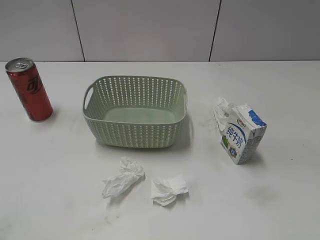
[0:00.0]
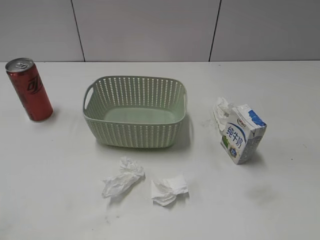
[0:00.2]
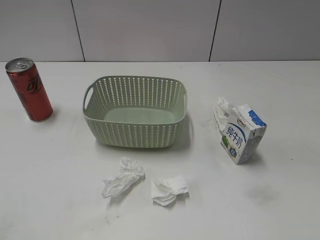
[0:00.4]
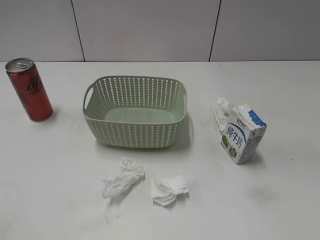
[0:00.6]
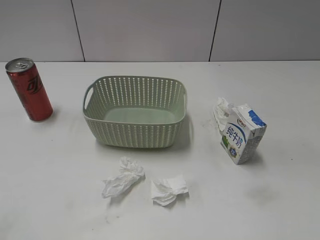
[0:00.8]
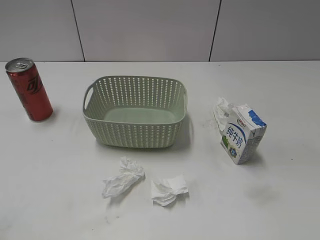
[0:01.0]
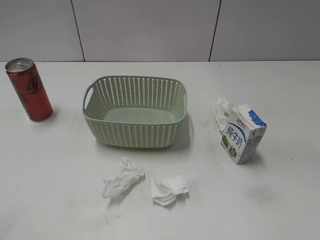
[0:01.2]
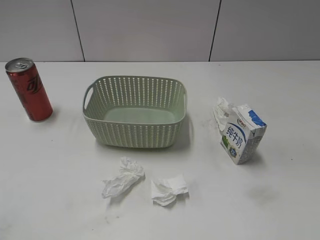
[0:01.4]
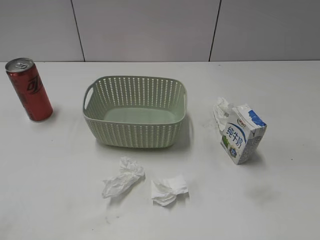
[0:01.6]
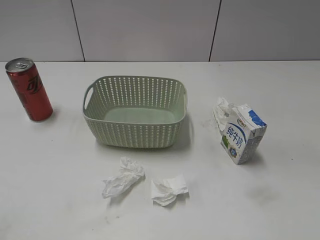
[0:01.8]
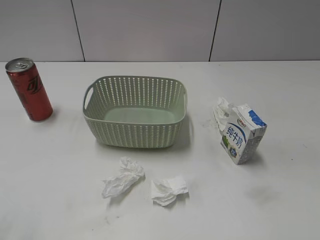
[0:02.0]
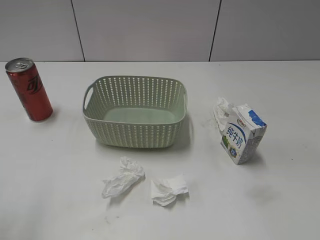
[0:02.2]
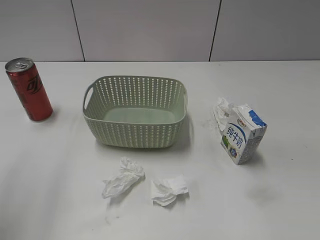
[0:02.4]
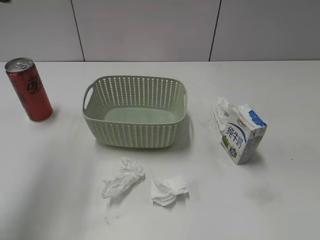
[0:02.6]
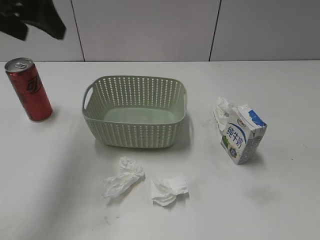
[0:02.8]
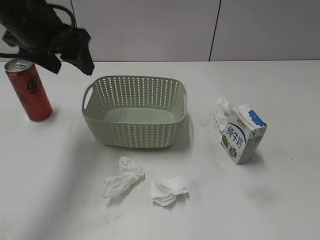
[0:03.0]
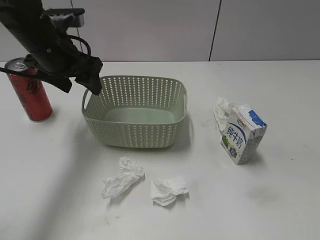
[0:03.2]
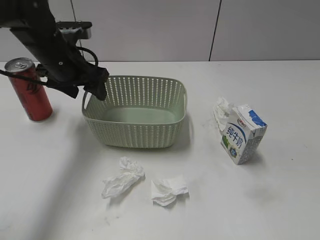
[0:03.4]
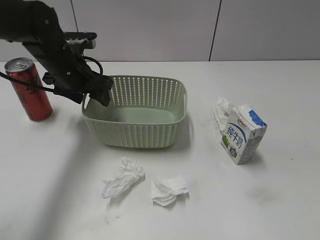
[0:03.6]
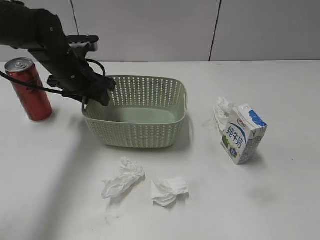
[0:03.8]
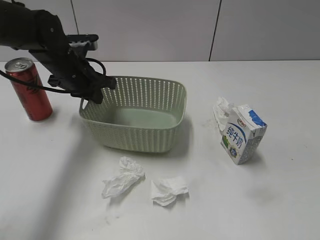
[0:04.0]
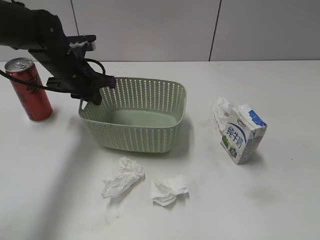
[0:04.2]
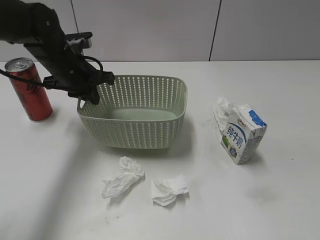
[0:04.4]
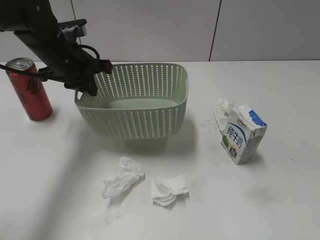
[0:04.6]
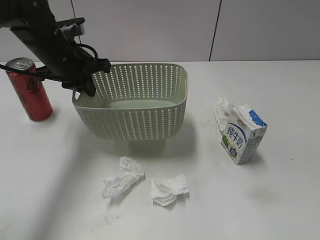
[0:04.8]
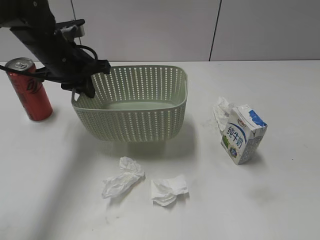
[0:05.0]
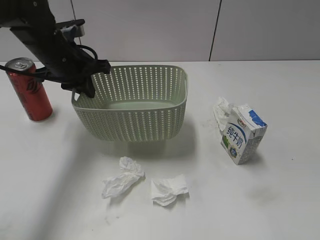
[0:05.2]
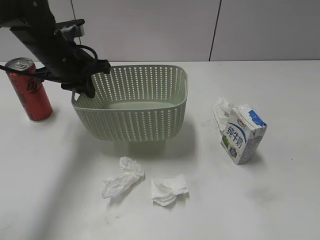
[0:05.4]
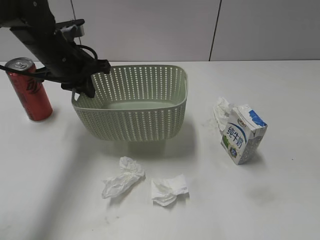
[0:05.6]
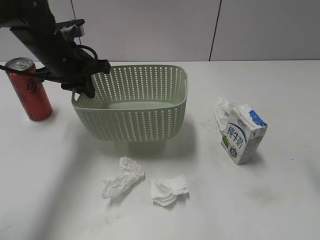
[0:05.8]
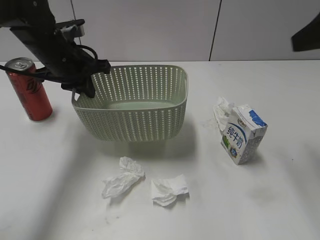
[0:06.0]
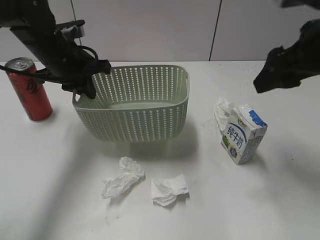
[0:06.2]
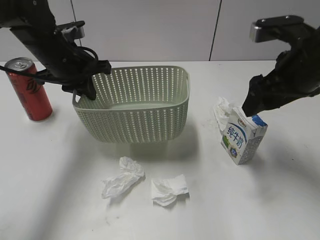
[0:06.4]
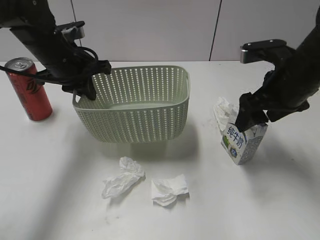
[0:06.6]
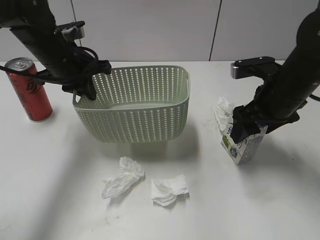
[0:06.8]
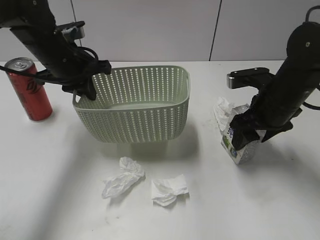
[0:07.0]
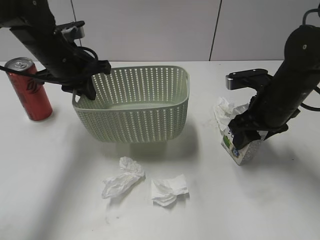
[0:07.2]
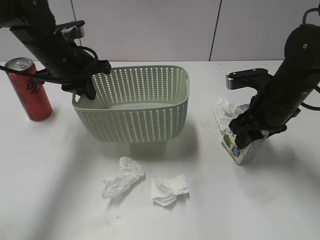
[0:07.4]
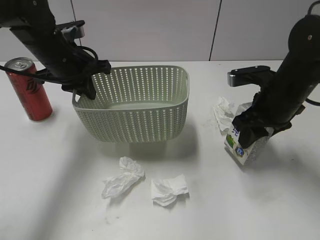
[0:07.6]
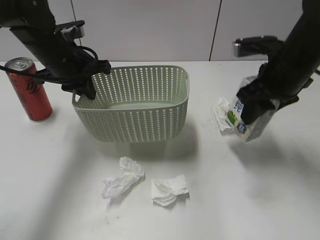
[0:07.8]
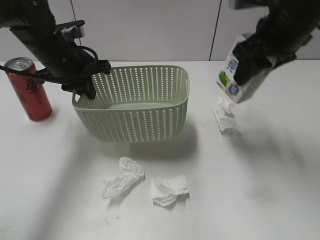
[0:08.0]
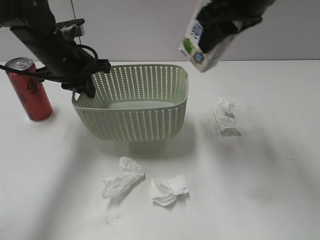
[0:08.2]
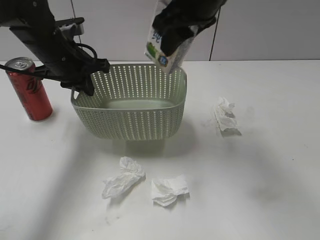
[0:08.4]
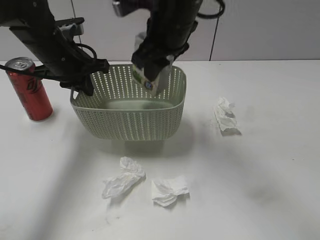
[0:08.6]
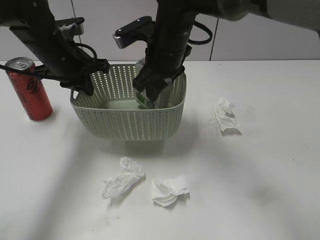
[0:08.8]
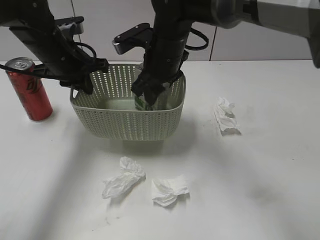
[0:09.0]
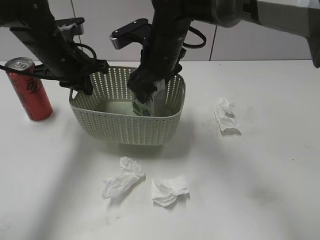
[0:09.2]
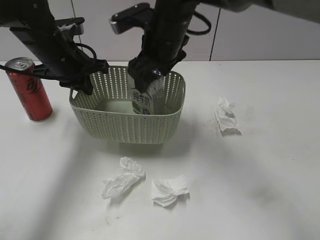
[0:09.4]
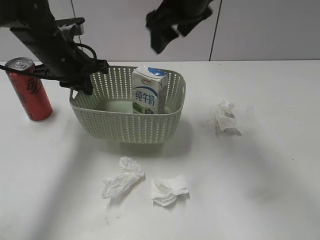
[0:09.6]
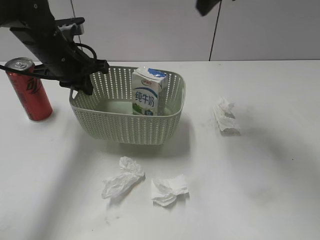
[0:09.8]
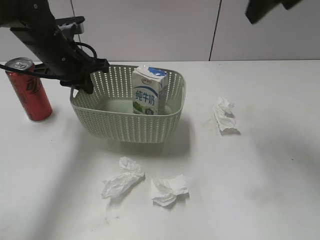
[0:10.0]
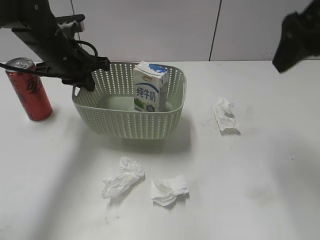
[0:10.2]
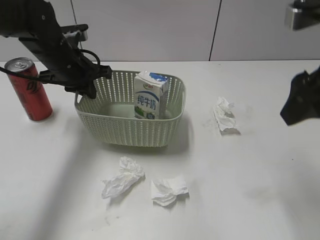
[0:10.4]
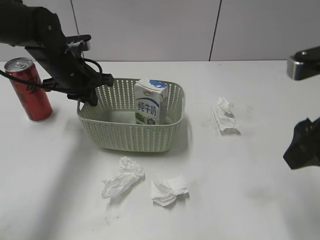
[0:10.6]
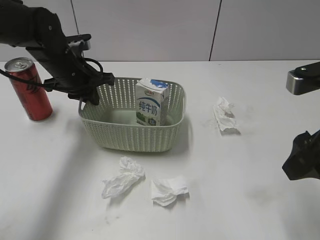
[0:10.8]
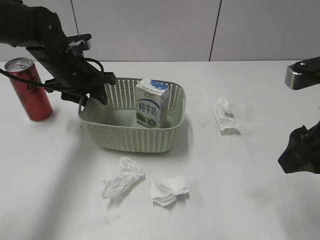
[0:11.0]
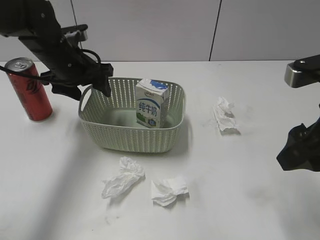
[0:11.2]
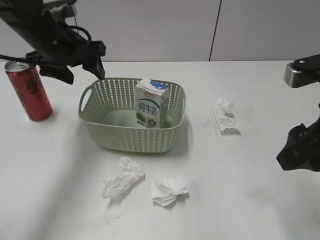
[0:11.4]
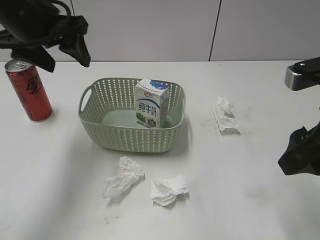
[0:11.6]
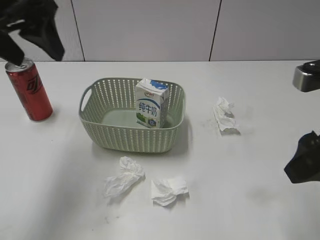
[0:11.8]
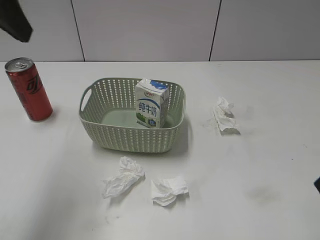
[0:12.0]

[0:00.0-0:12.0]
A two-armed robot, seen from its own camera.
Step, 0:02.6 to 0:04.0: Grasp the basket with left gripper.
Step, 0:04.2 to 0:04.8: Lift the basket with left gripper.
Step, 0:05.0 to 0:07.4: Grasp the milk with right gripper.
Step, 0:07.6 to 0:09.6: Place the milk in the basket with right gripper.
Step, 0:09.8 to 0:11.4: Place the basket on the table with left gripper.
0:01.6 to 0:03.0: The left gripper is displaced forward by approximately 35 cm.
0:03.0 to 0:04.4: The left gripper is displaced downward and forward by about 10 cm, and closes.
0:04.4 to 0:06.0: The right gripper shifts about 25 cm forward.
0:06.0 to 0:07.6: The right gripper shifts approximately 15 cm downward, and closes up.
0:07.6 to 0:09.0: The right gripper travels to the left by approximately 20 cm.
0:09.0 to 0:10.4: The right gripper shifts about 30 cm to the right, backward and upward, and opens.
0:10.4 to 0:12.0: The right gripper is displaced backward by approximately 10 cm. Meanwhile the left gripper travels upward and backward by some 25 cm, and opens.

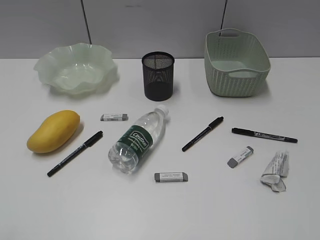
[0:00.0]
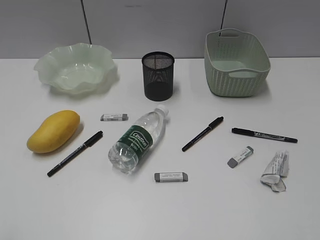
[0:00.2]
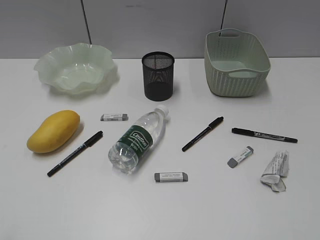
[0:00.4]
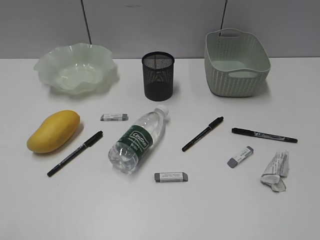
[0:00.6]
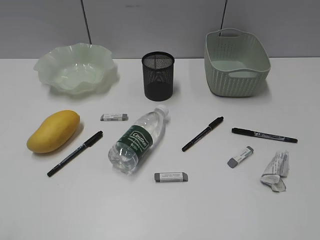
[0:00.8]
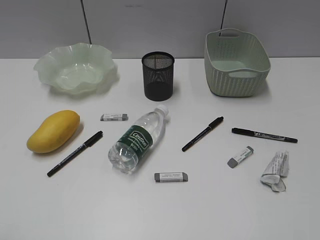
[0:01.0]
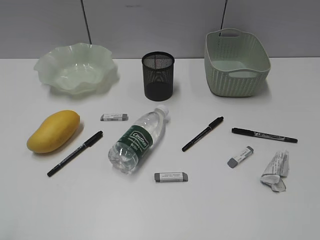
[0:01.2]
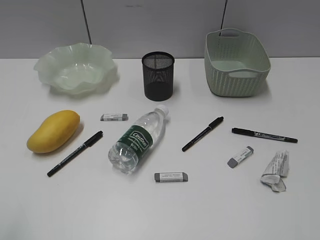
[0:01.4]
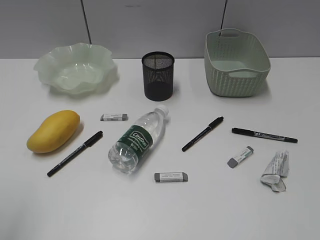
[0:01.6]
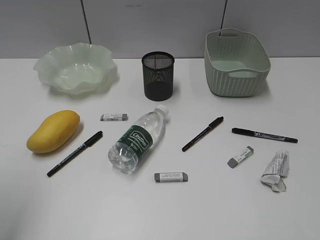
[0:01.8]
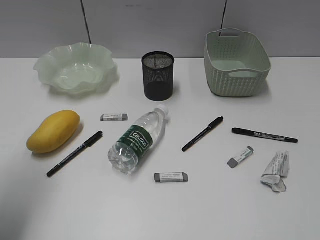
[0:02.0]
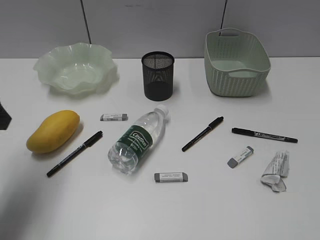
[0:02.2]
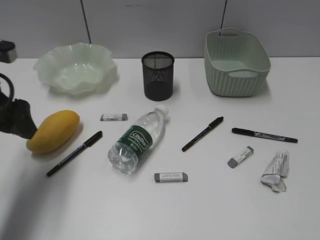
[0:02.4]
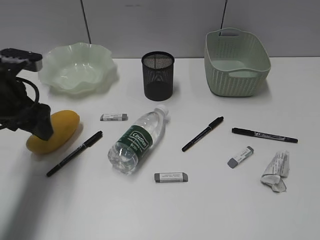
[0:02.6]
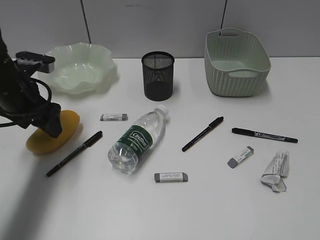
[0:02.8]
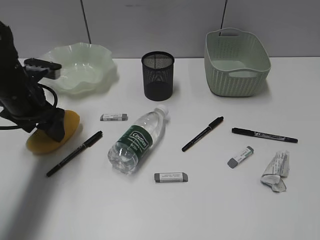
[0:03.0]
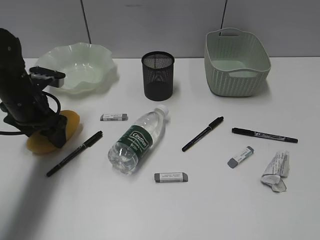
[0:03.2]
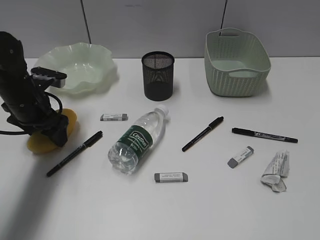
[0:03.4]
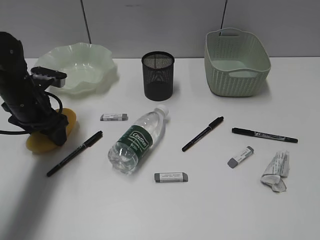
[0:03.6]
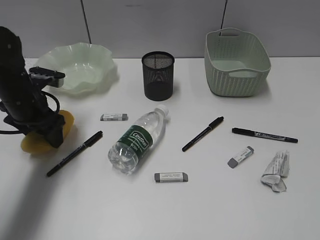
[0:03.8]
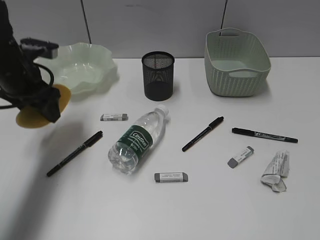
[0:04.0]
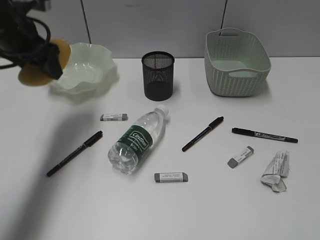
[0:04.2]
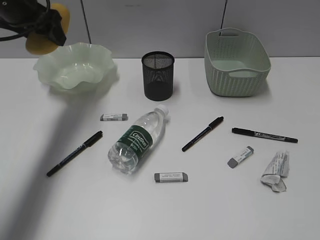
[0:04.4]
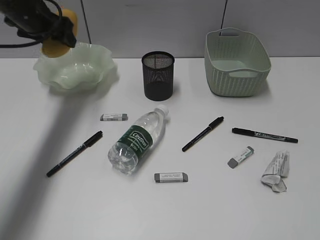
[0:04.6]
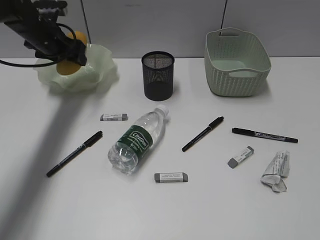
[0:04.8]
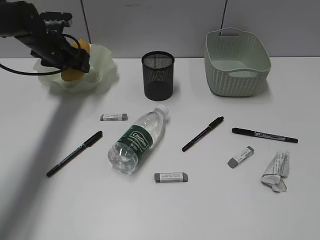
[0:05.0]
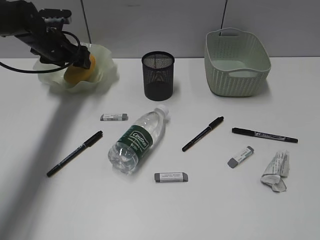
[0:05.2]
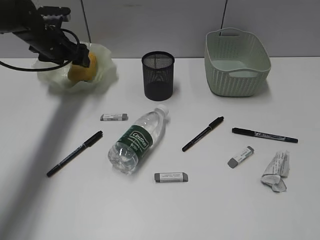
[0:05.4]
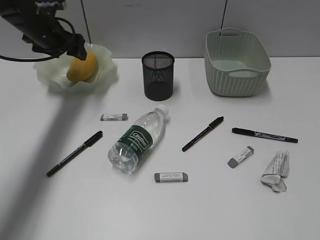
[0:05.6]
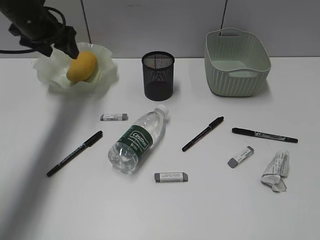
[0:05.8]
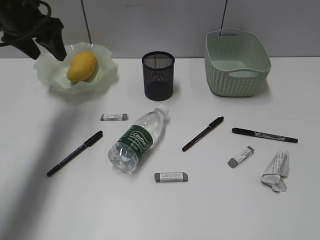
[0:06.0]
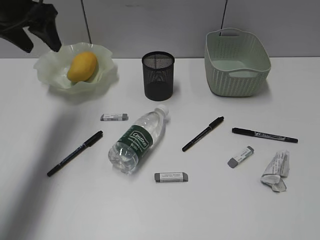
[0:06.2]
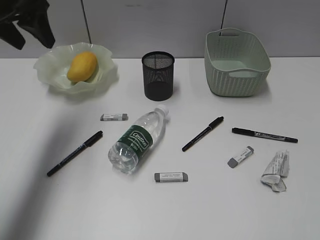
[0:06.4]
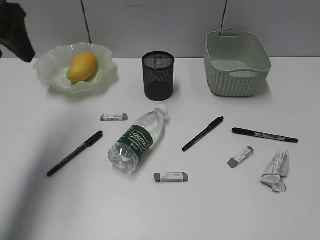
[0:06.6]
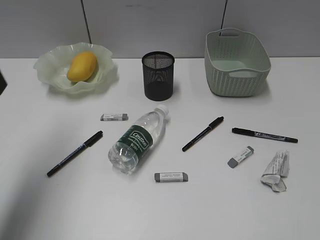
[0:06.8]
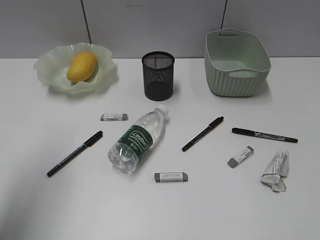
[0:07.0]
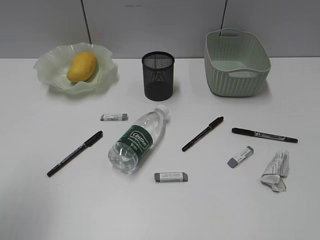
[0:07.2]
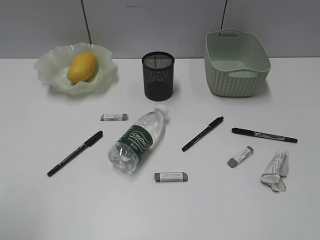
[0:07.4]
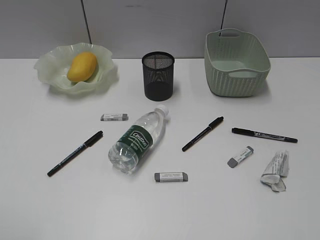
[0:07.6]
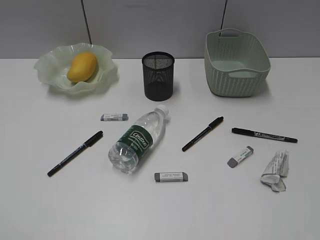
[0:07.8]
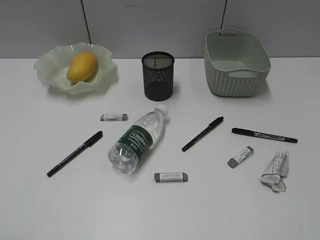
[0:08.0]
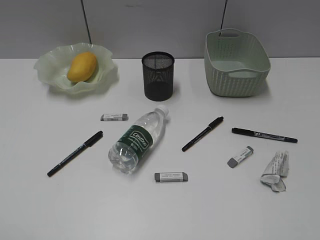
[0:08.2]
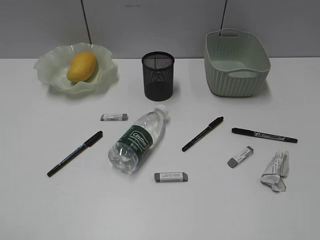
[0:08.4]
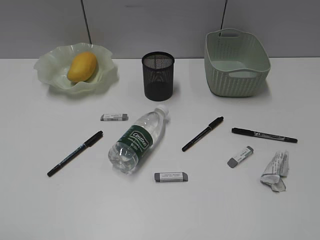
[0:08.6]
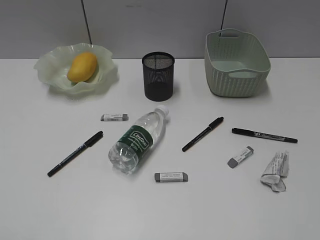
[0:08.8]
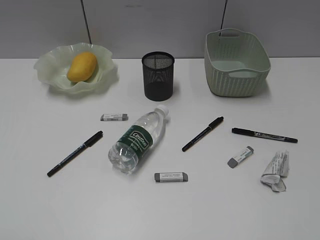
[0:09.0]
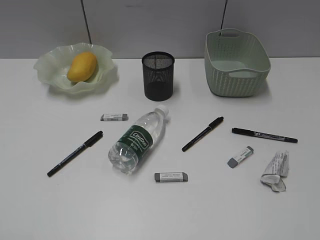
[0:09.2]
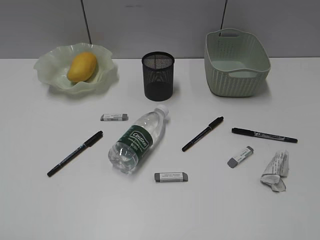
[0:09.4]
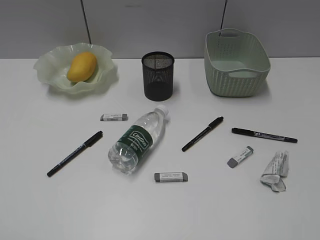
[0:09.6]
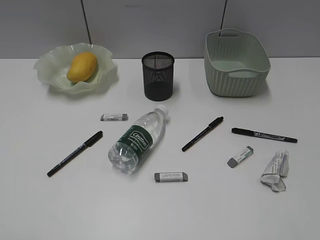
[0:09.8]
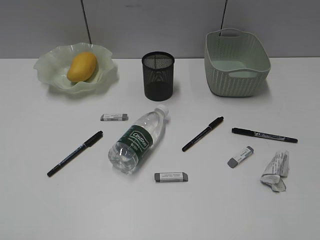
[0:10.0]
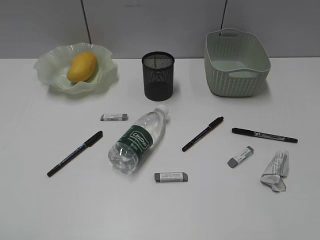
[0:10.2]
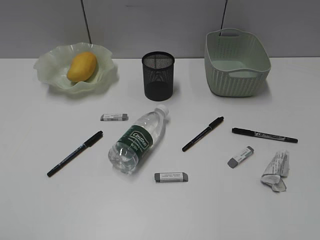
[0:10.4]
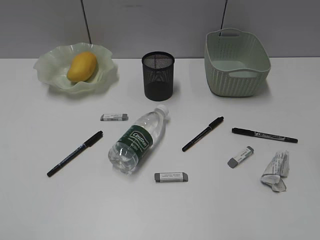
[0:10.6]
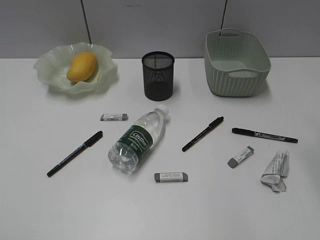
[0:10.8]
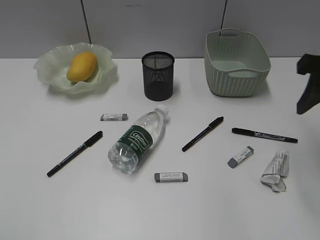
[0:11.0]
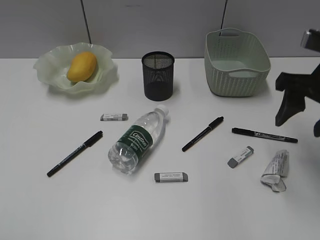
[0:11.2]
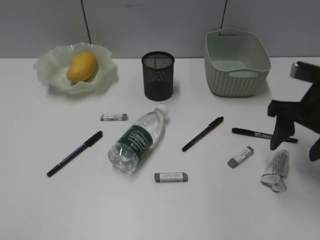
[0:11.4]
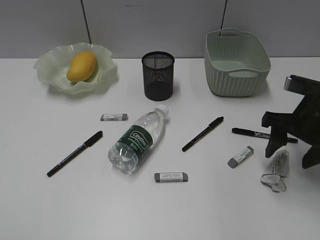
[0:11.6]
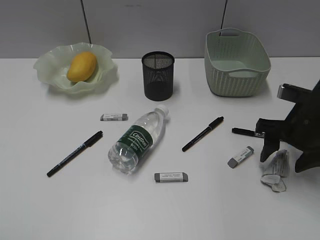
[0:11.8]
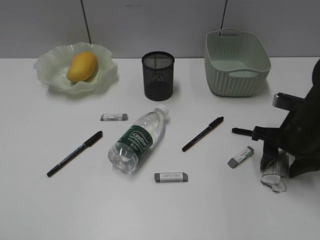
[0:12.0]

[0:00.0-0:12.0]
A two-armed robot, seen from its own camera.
Step, 0:02.2 to 0:03.6: Grasp the mango with left gripper.
Step, 0:03.8 to 0:05.6: Place the mango in the plate with left gripper.
0:01.6 to 0:03.0: The left gripper moves forward and downward, roughly 30 cm.
0:03.0 to 0:04.4: The left gripper shifts about 15 cm upward and forward.
0:04.4 to 0:06.0: The left gripper goes downward and returns, about 15 cm each way.
0:06.0 to 0:07.6: The left gripper goes roughly 40 cm backward.
0:10.4 to 0:12.0: The right gripper travels downward and forward by roughly 25 cm.
